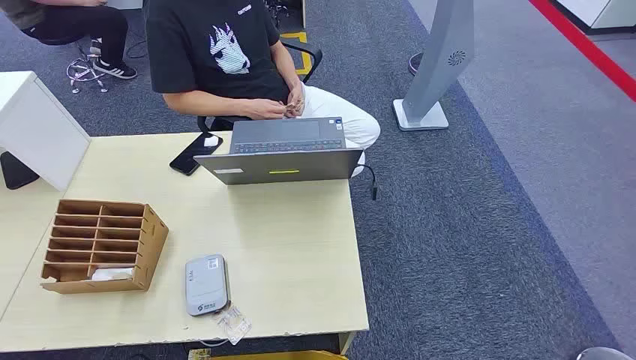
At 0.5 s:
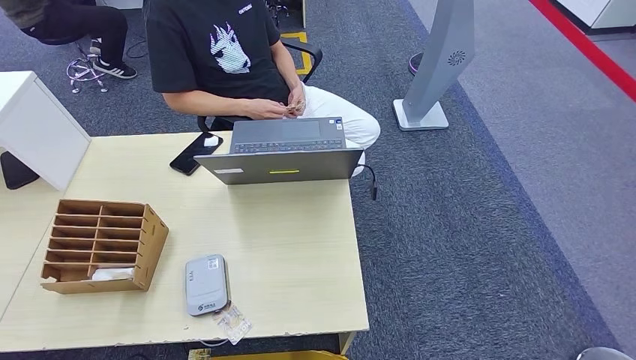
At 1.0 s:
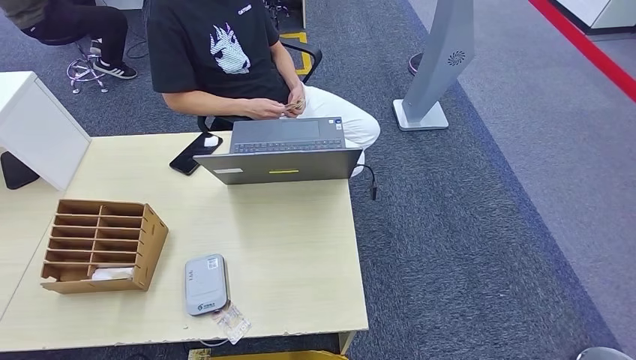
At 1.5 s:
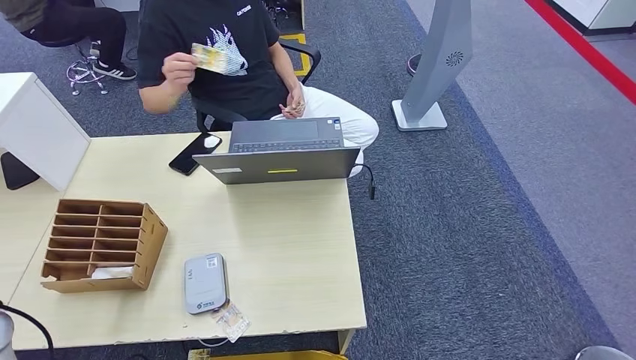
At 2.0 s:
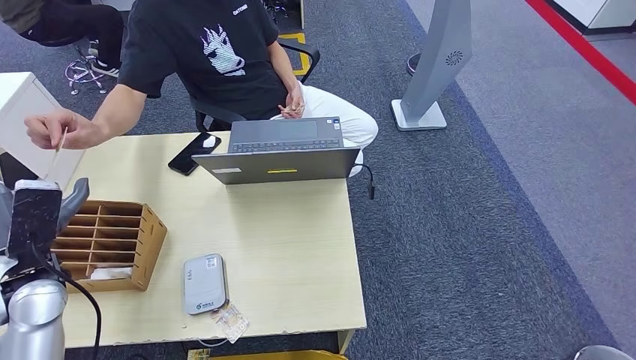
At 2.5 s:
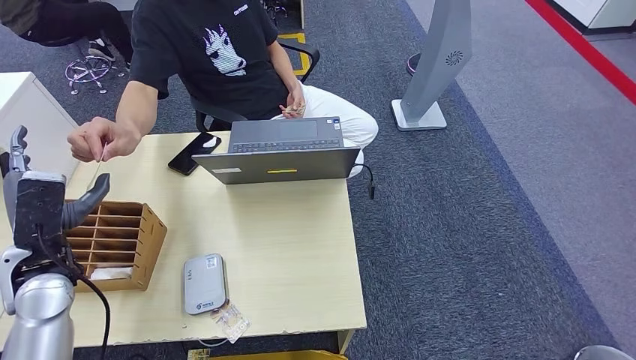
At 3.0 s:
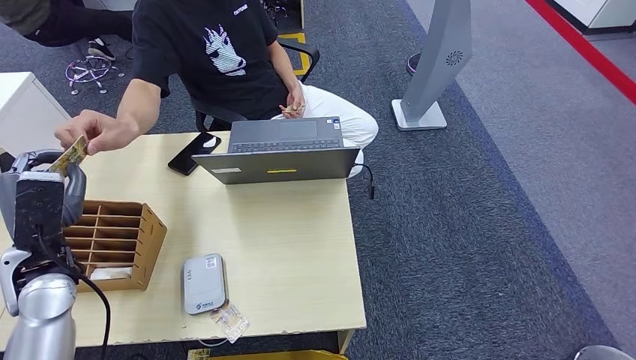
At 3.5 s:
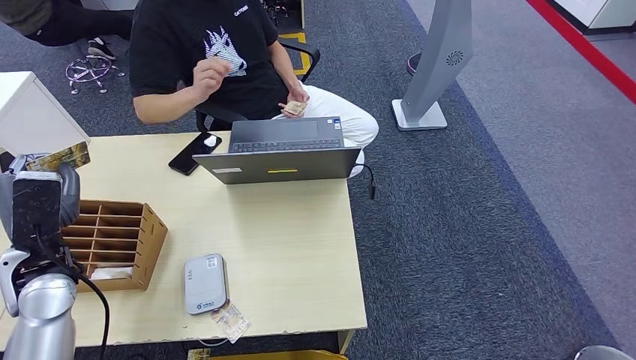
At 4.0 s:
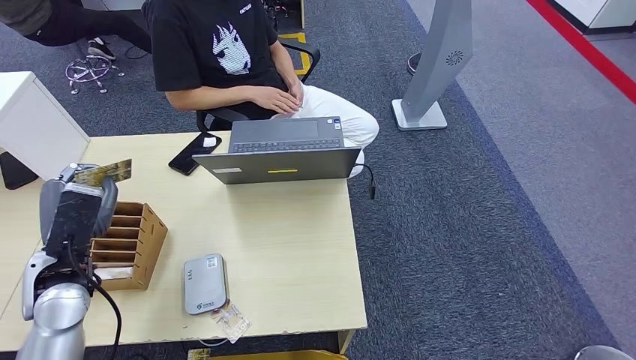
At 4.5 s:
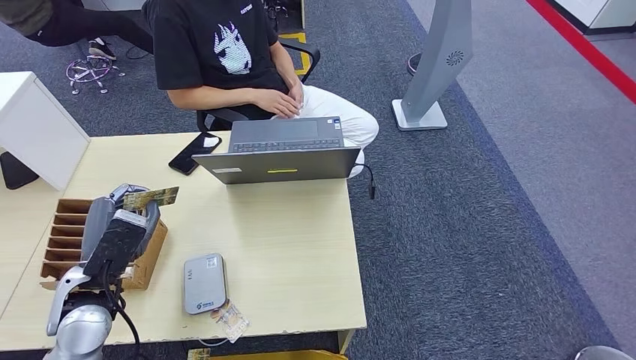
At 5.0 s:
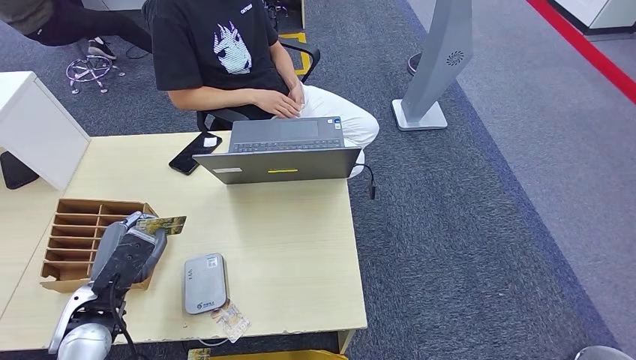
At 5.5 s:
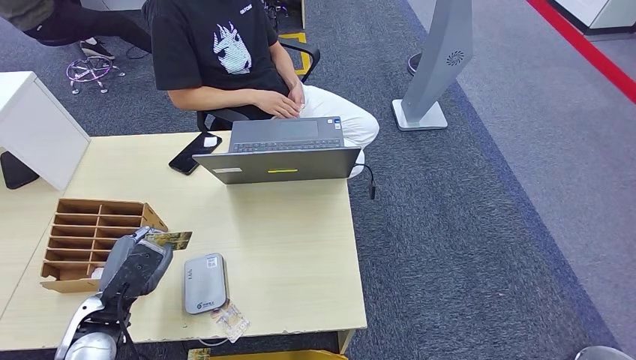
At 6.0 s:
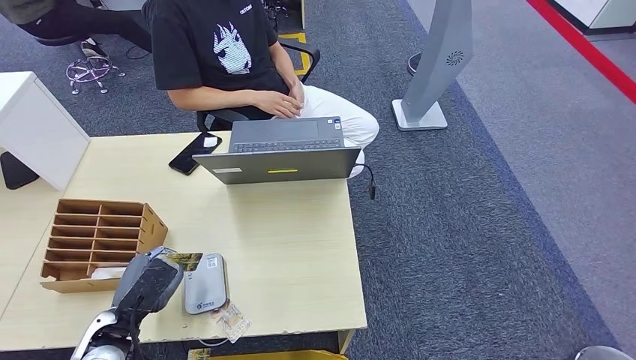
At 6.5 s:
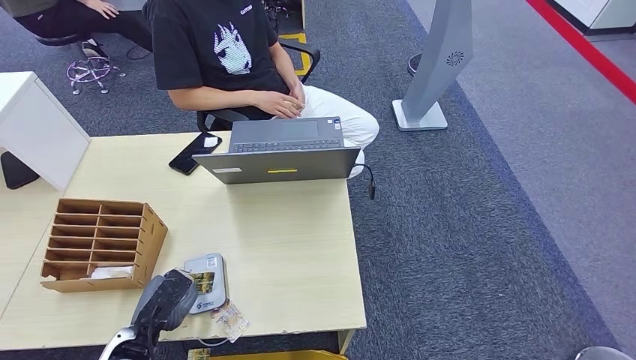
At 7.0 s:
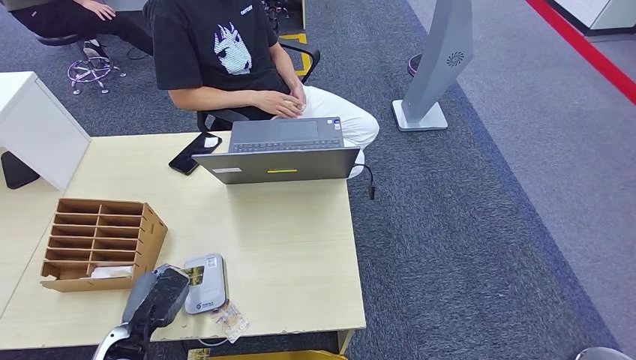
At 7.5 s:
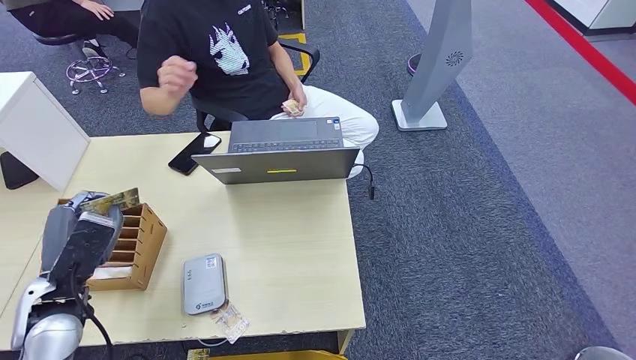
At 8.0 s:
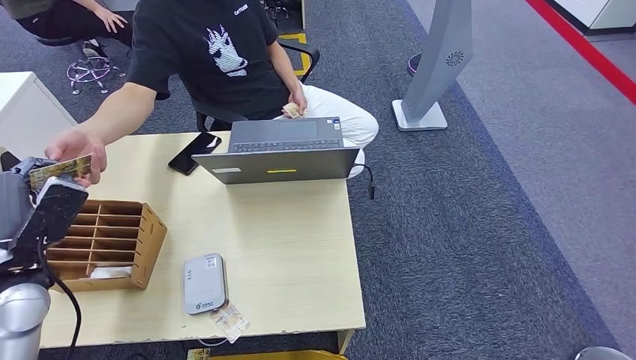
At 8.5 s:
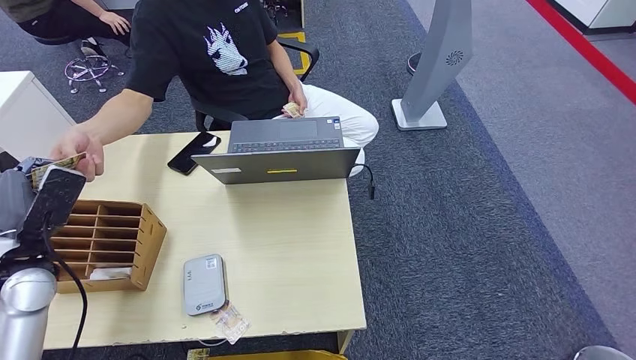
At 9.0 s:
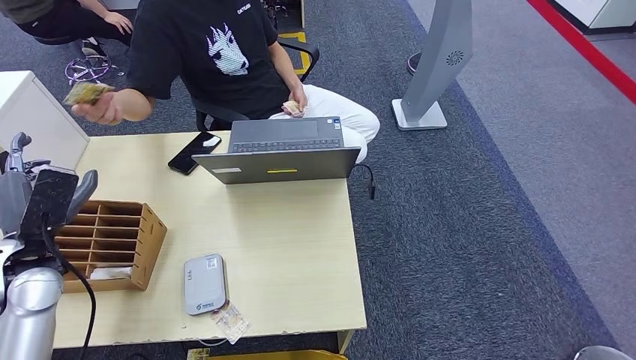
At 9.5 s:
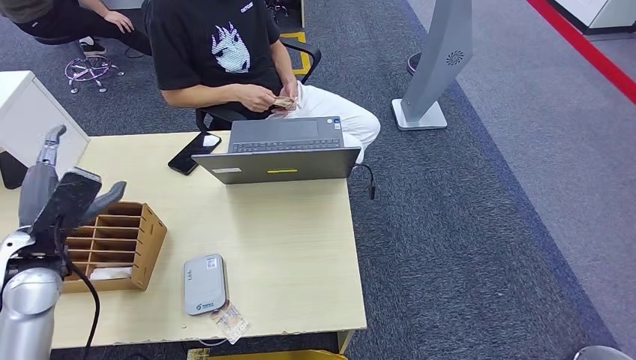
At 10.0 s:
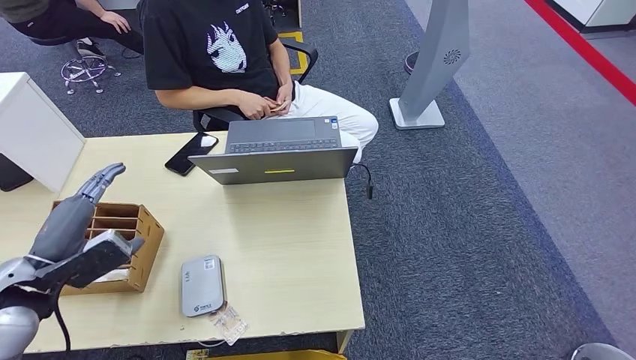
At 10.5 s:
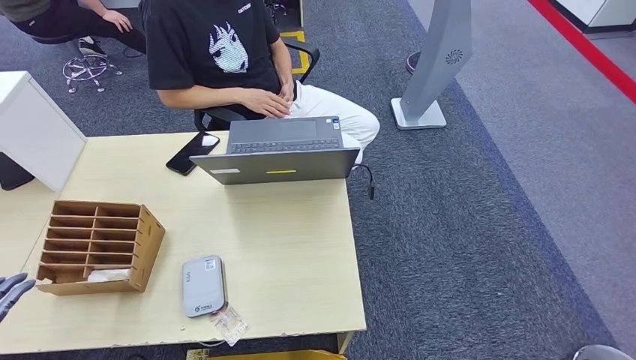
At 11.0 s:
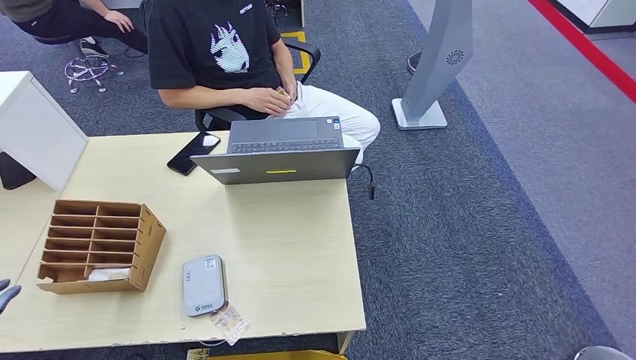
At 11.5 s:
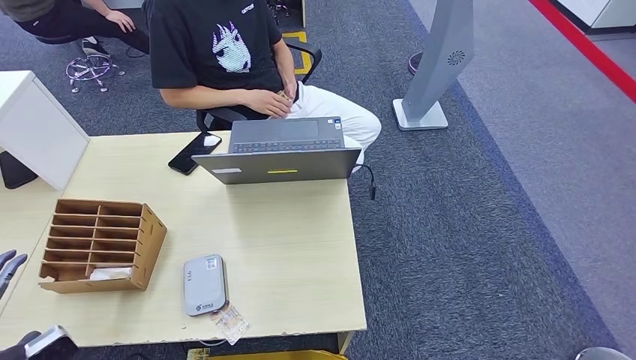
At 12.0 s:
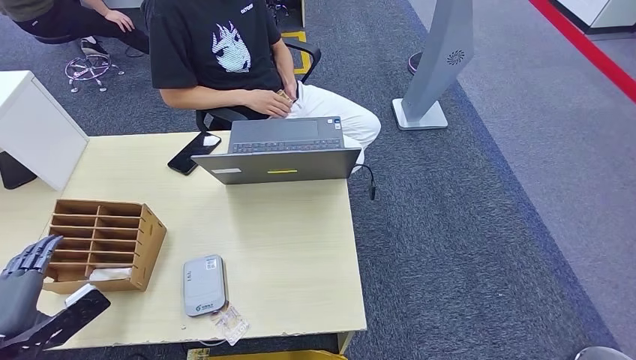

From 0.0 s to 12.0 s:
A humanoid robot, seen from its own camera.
Step, from 0.0 s to 3.0 s: Take the ID card from the person's hand.
Step, from 3.5 s to 6.0 s: Place the ID card on the card reader.
Step, from 7.0 s to 9.0 s: Hand the ID card to the person.
From 2.0 s to 4.0 s: The hands stay close to where they were, moving slightly.
From 4.0 s to 6.0 s: The left hand is displaced downward and backward by about 15 cm.
From 6.0 s to 8.0 s: The left hand heads upward, forward and to the left, covering about 15 cm.
From 10.0 s to 12.0 s: The left hand shifts roughly 15 cm backward, to the left and downward.

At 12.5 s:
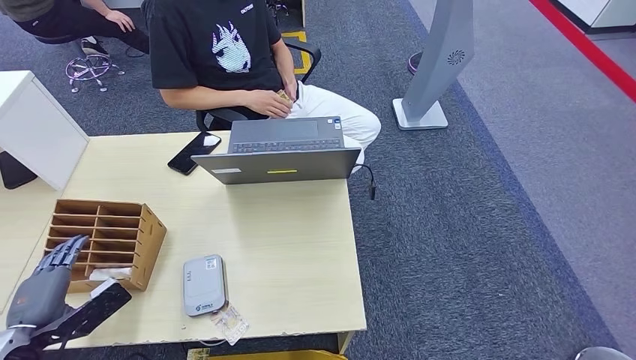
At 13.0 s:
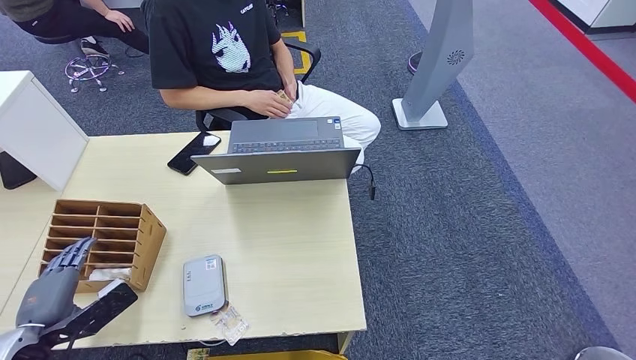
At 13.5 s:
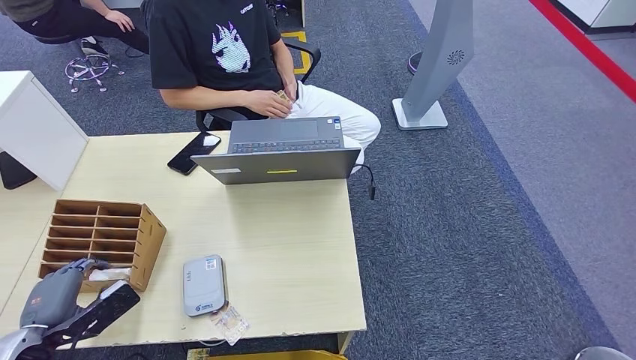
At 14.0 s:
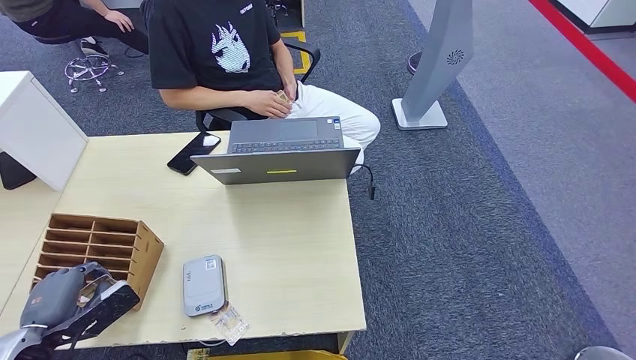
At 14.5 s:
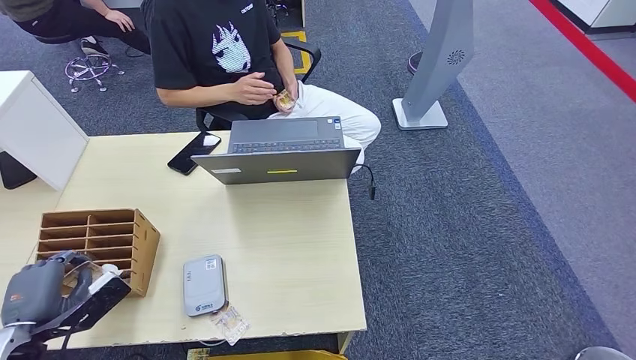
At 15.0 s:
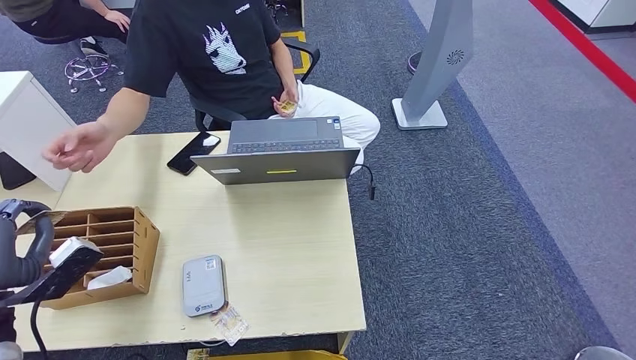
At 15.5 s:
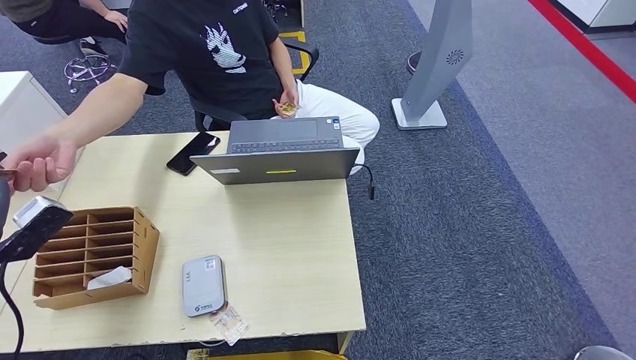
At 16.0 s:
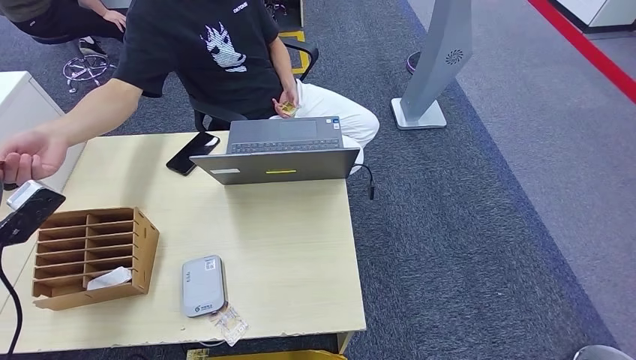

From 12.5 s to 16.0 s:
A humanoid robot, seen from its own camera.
Step, from 15.5 s to 16.0 s: Hand the room key to the person.
From 12.5 s to 14.5 s: The hands stay close to where they were, moving slightly.
From 14.5 s to 16.0 s: The left hand goes approximately 15 cm upward and forward.
